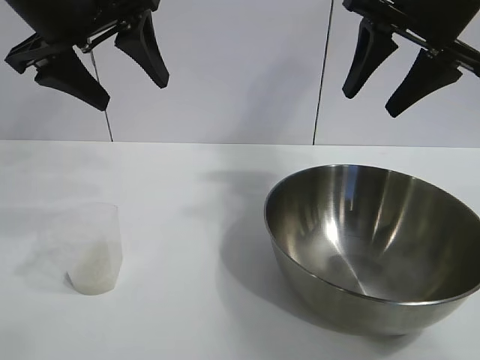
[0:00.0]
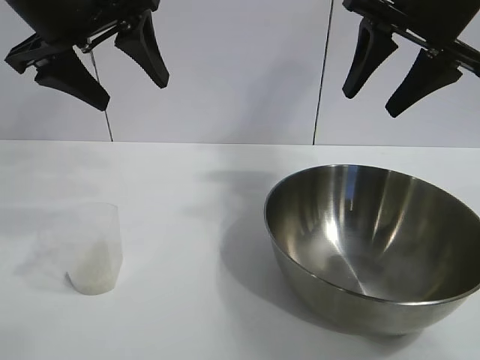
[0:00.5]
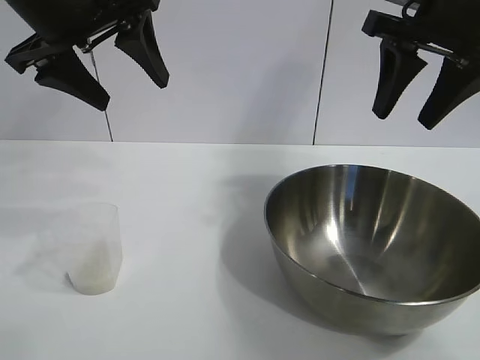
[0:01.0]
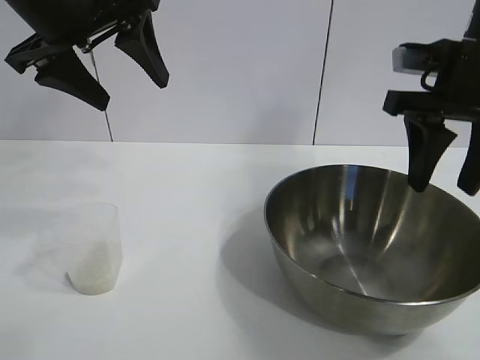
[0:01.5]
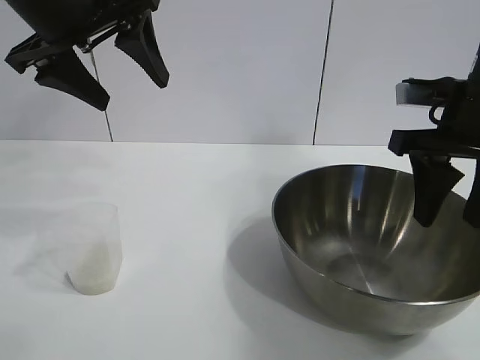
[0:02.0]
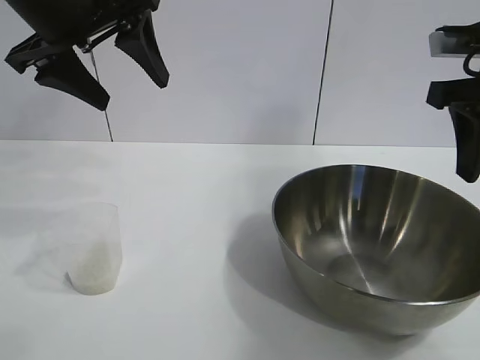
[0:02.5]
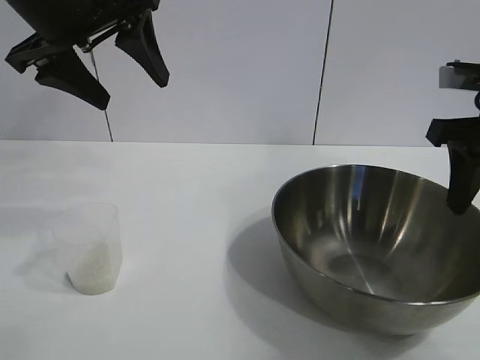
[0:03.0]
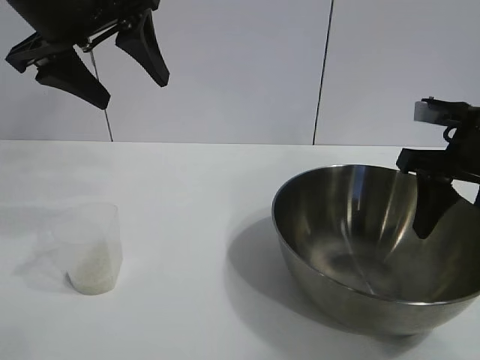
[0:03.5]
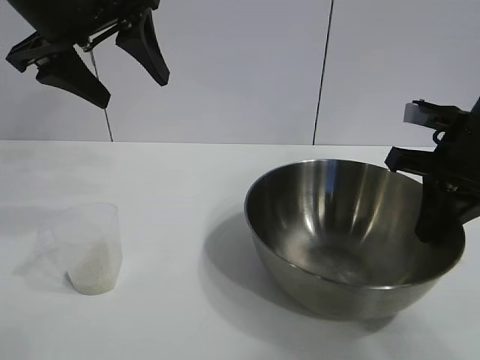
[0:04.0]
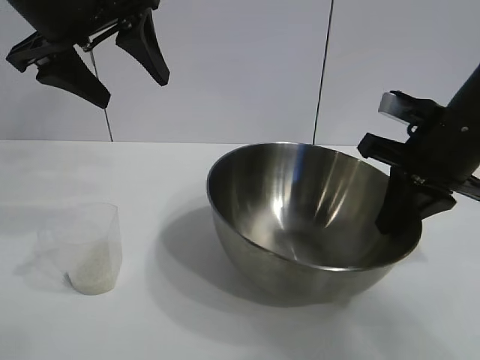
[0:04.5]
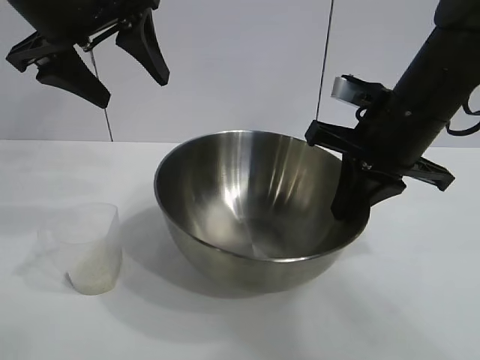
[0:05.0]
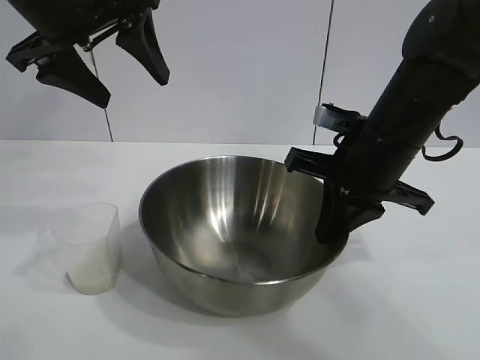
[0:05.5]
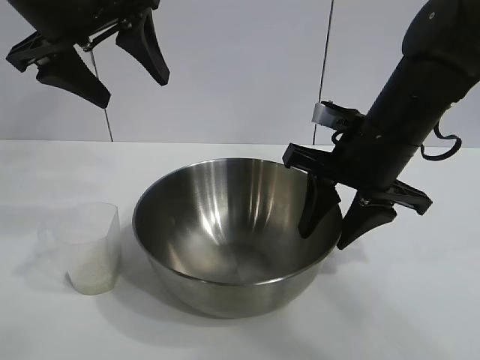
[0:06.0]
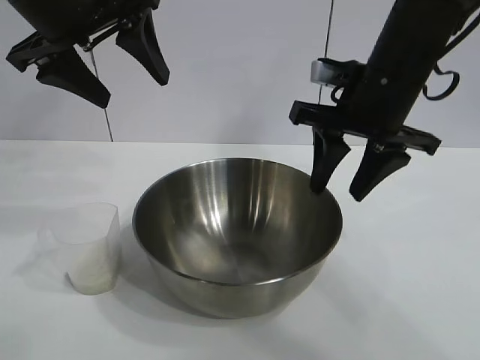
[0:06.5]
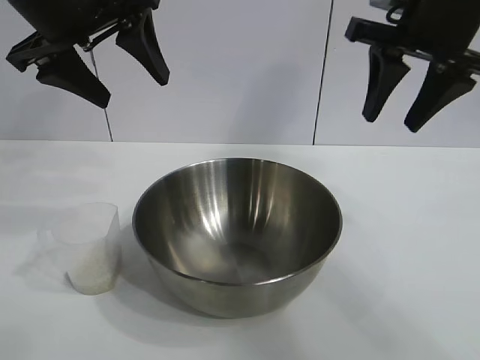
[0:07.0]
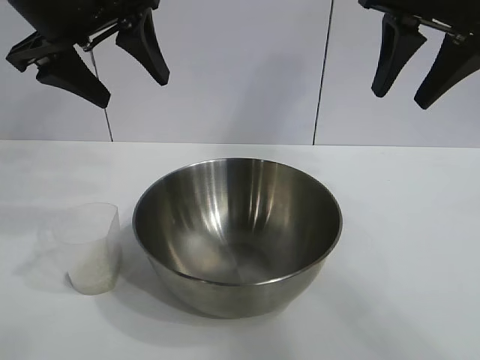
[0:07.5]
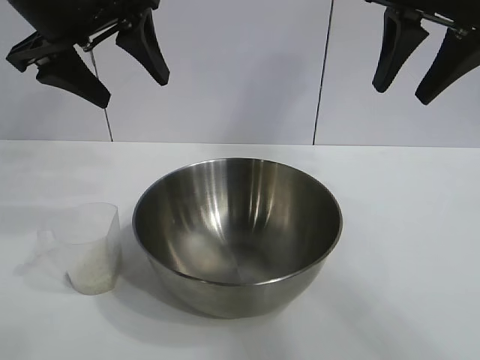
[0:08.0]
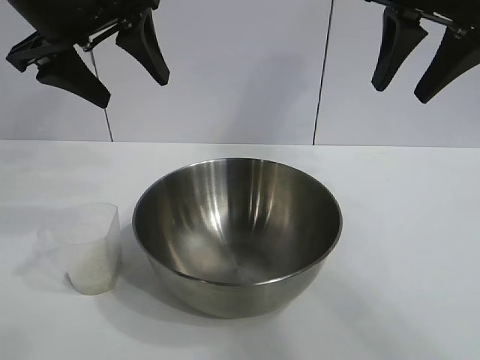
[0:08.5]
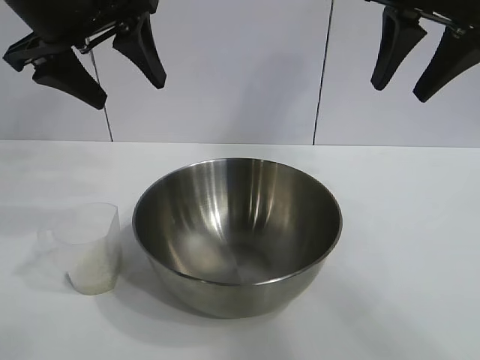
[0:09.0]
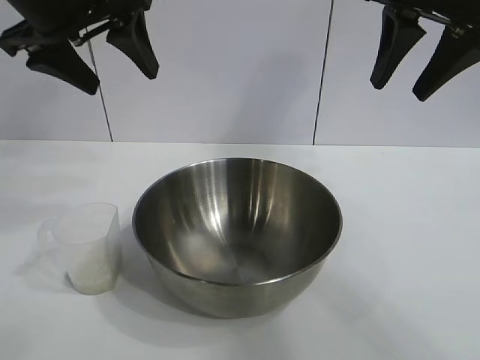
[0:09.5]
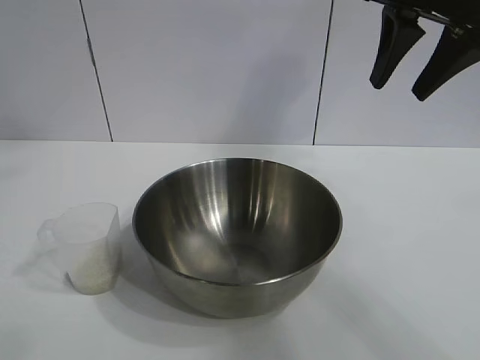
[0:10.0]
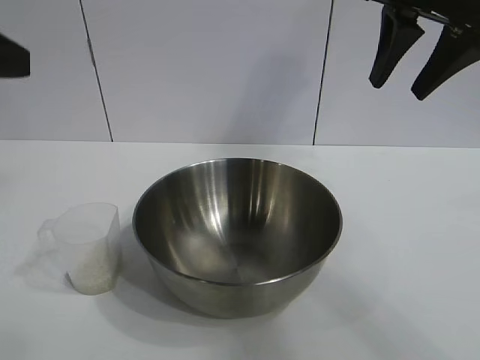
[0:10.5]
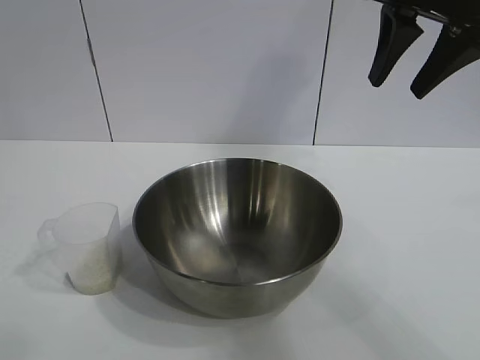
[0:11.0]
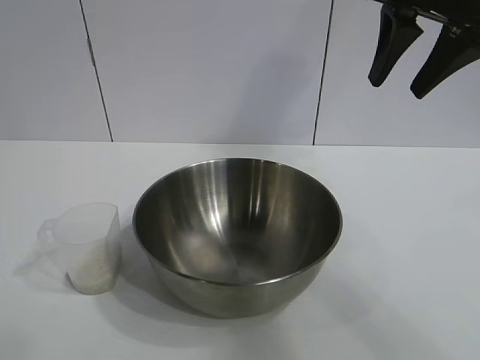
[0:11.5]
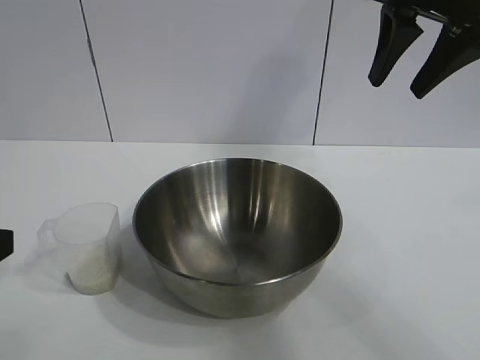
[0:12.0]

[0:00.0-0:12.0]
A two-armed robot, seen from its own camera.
Task of the whole recording: the right gripper grasp the rice container and place it in the center of the table, the left gripper grasp the rice scoop and pour the rice into the rice container.
Step, 0:01.0 to 0:06.0: Move the bowl in the center of view with right gripper.

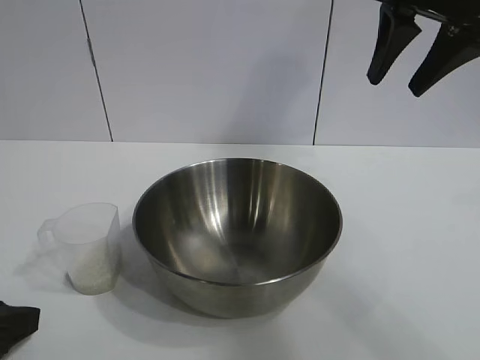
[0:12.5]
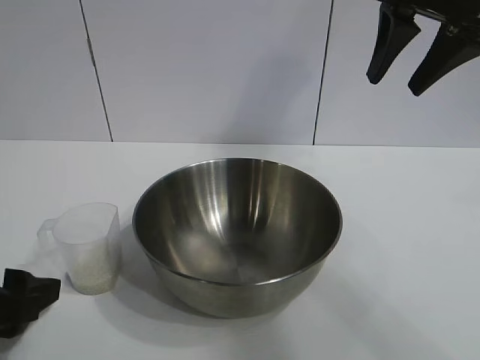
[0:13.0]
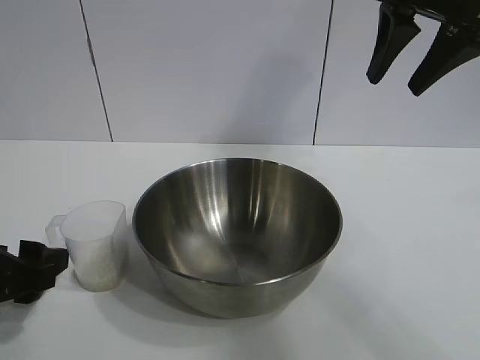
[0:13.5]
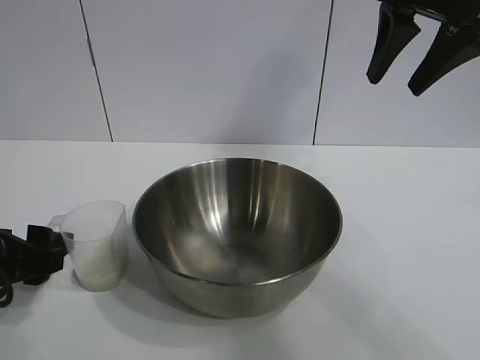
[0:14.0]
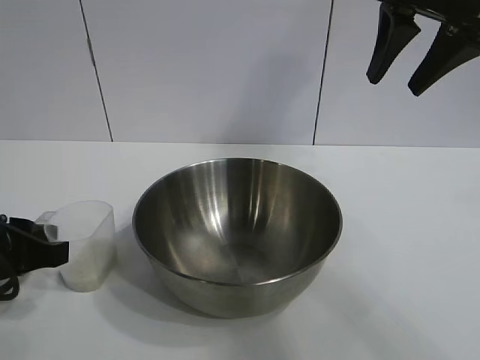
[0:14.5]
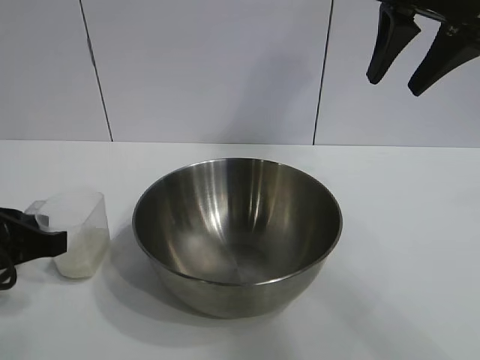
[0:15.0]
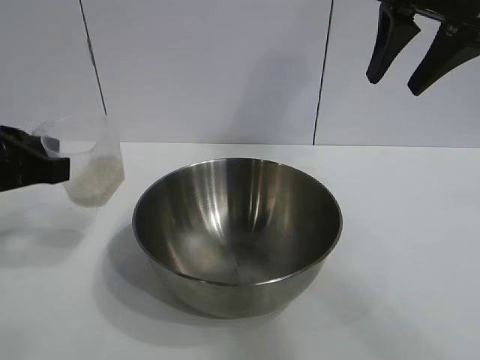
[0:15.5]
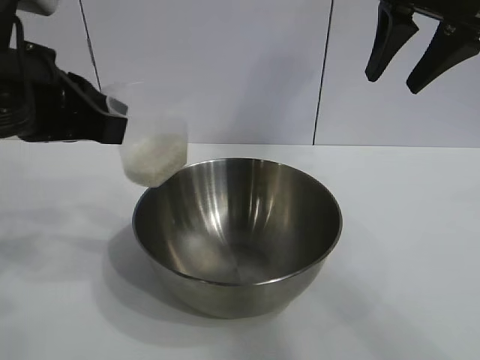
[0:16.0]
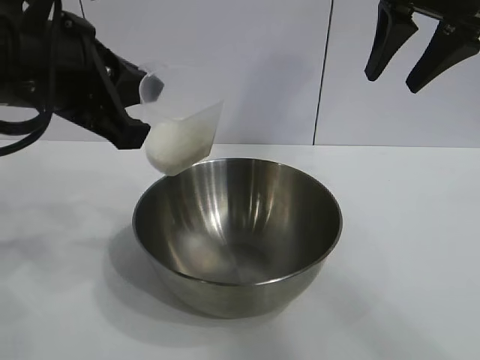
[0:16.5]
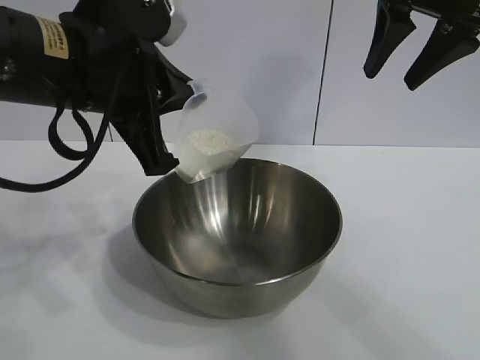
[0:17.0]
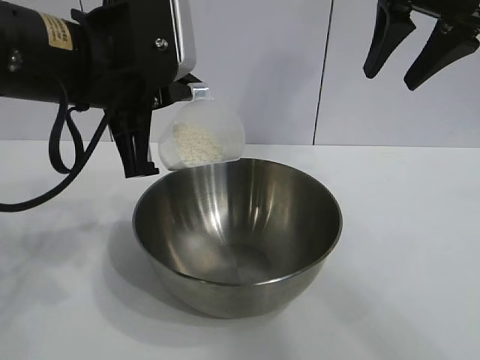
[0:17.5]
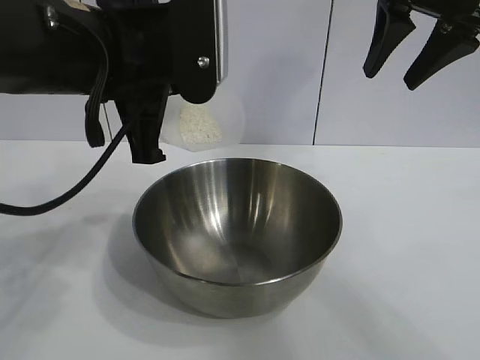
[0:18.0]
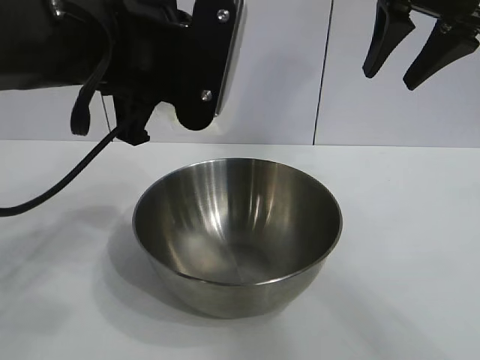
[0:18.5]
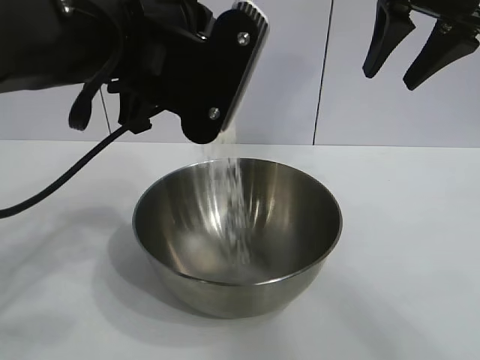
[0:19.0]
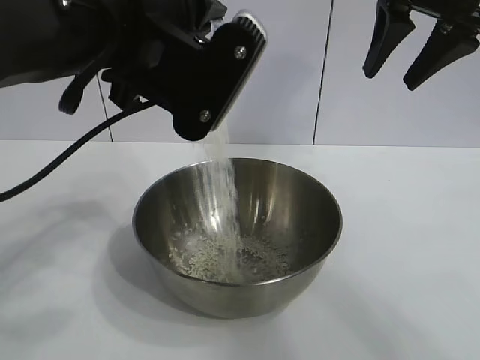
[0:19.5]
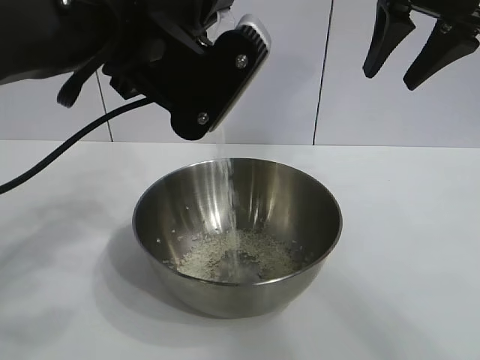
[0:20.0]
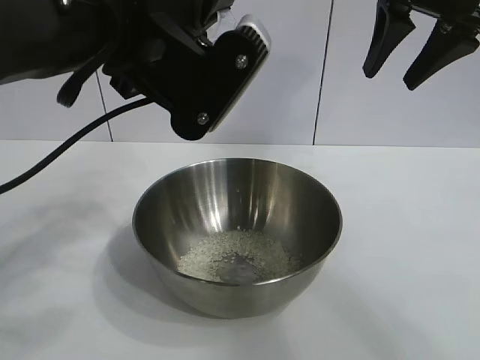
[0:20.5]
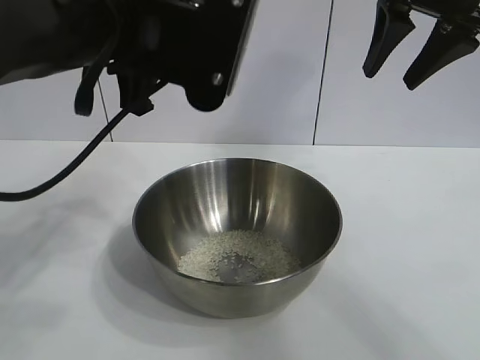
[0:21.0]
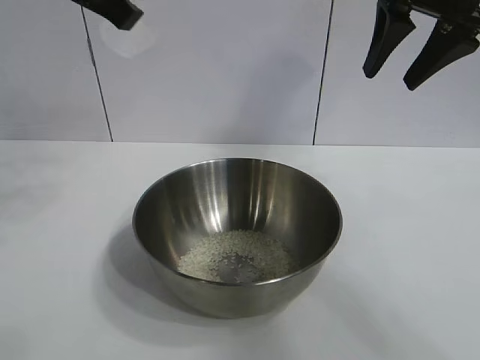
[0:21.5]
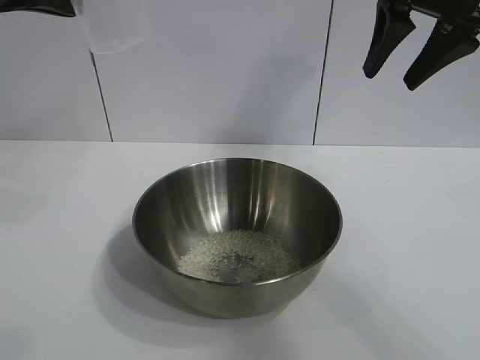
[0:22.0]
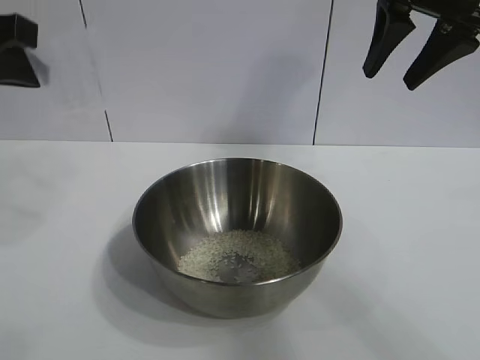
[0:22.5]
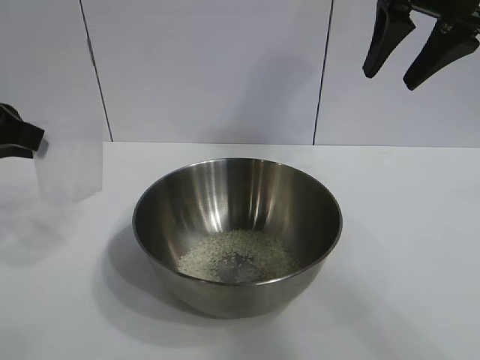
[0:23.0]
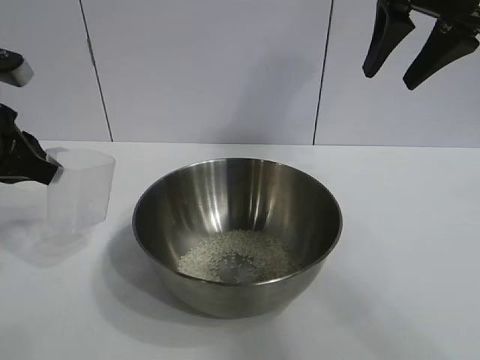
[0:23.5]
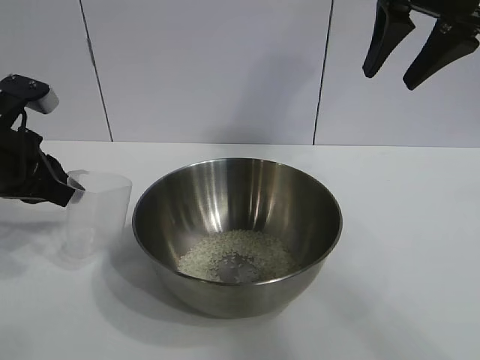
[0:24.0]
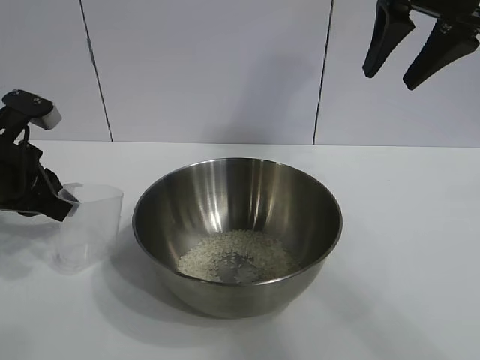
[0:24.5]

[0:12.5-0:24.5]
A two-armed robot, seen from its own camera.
Task of the whole recording: the right gripper grasp the rice container and place it in the center of the table, the left gripper grasp the rice scoop and pour the rice into the rice container.
Step, 0:12.5 to 0:14.5: Grasp the cup with rice in it with left gripper.
Step, 0:15.0 to 0:20.0: Pour the rice from the cup into the bowl with the left gripper.
